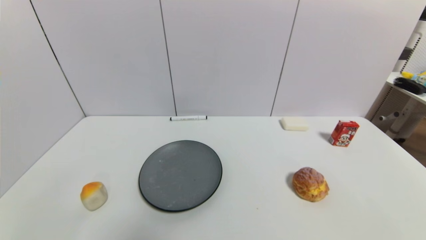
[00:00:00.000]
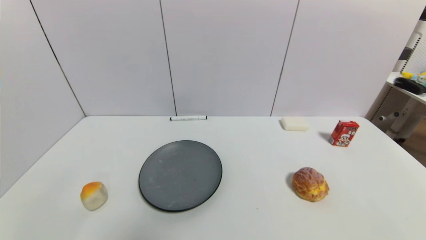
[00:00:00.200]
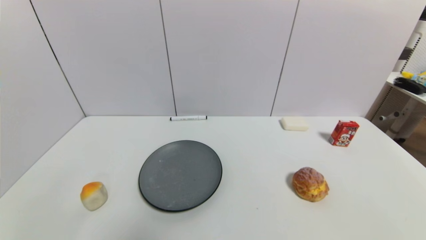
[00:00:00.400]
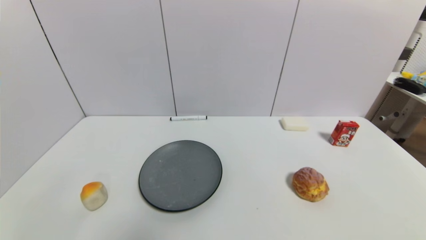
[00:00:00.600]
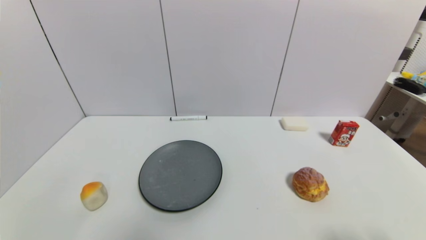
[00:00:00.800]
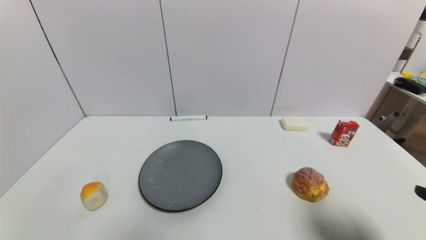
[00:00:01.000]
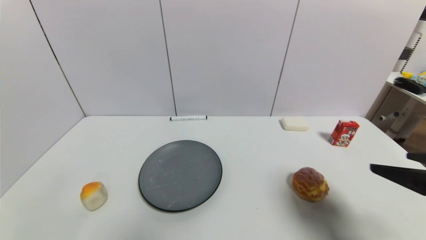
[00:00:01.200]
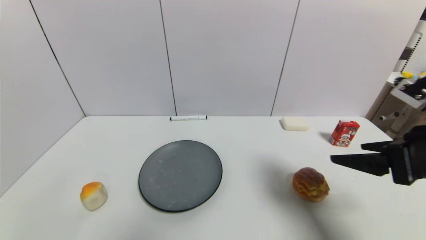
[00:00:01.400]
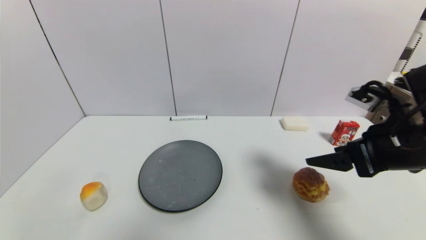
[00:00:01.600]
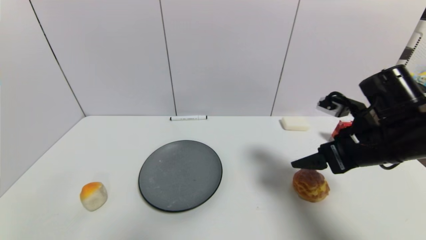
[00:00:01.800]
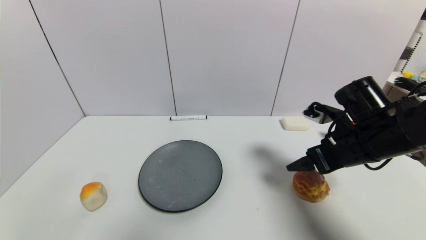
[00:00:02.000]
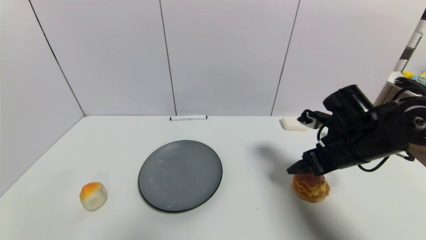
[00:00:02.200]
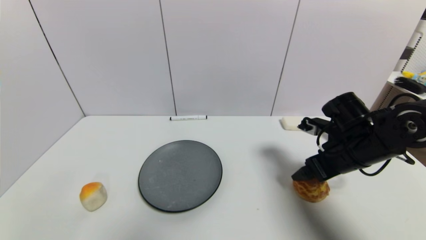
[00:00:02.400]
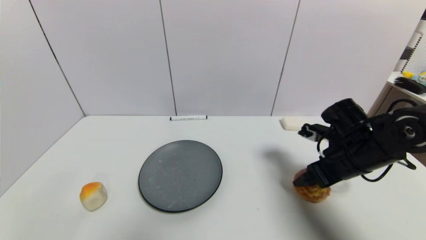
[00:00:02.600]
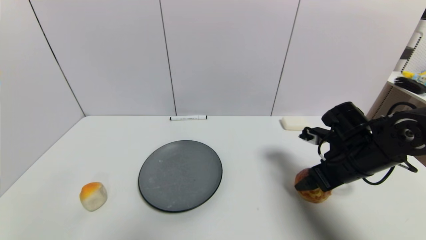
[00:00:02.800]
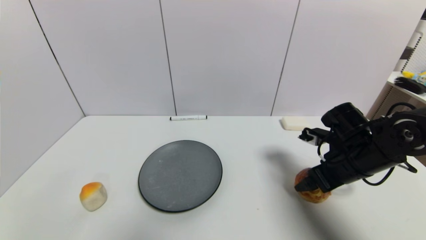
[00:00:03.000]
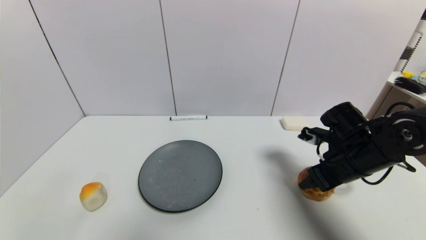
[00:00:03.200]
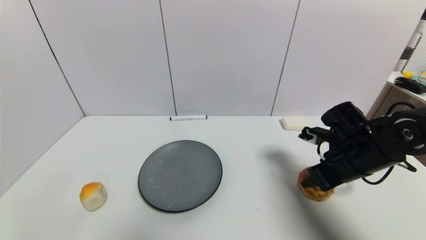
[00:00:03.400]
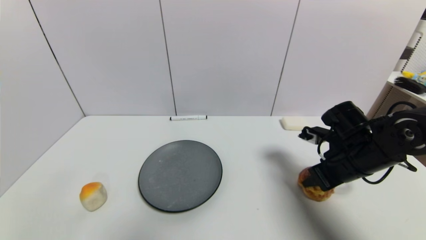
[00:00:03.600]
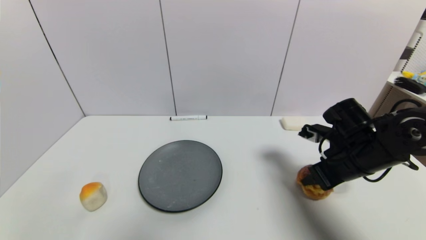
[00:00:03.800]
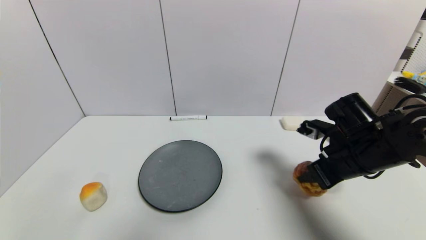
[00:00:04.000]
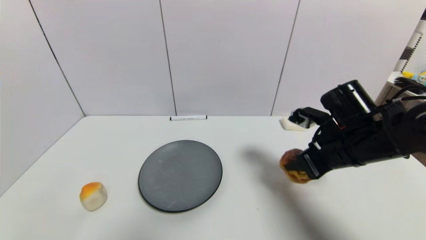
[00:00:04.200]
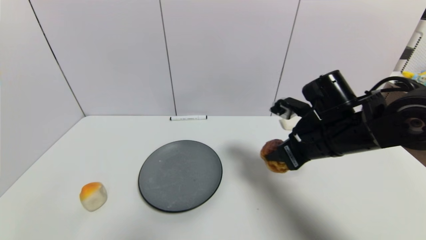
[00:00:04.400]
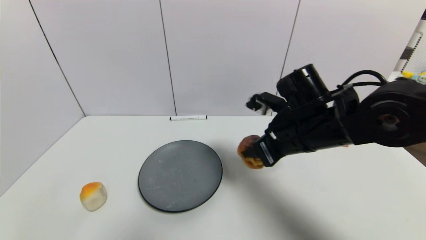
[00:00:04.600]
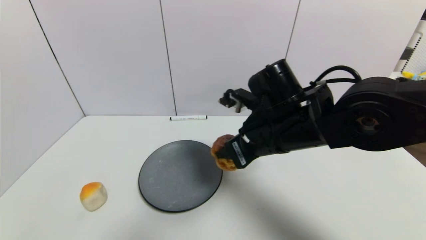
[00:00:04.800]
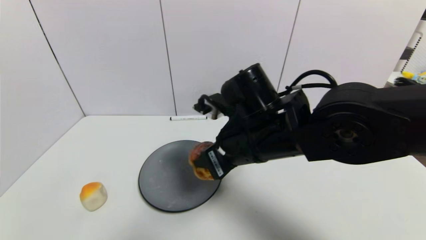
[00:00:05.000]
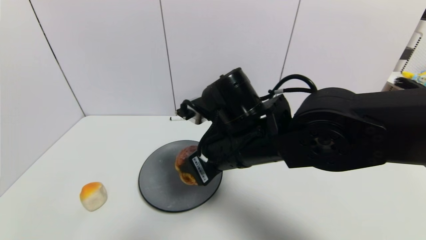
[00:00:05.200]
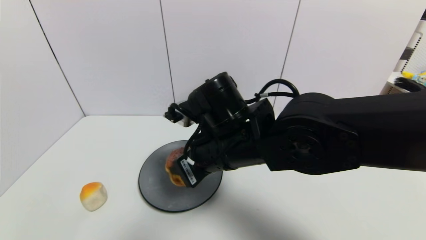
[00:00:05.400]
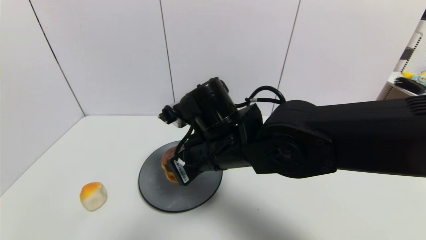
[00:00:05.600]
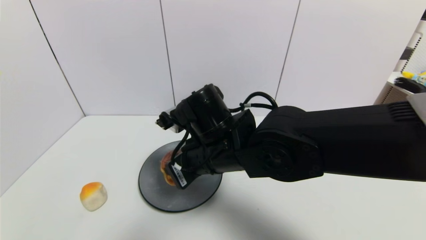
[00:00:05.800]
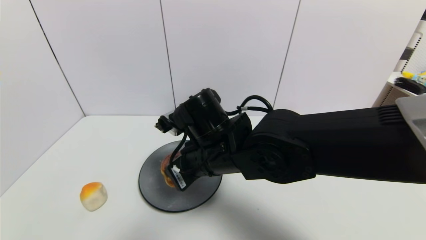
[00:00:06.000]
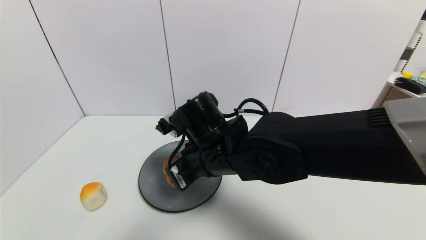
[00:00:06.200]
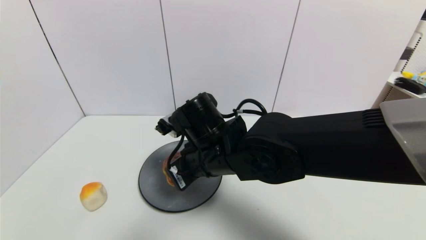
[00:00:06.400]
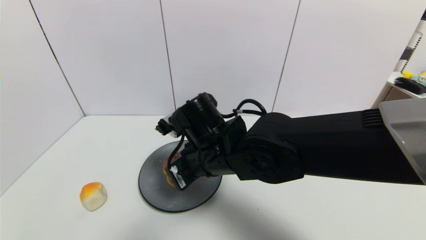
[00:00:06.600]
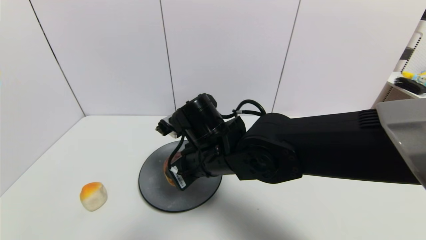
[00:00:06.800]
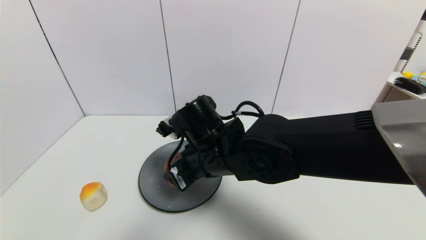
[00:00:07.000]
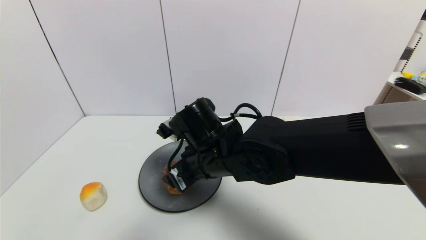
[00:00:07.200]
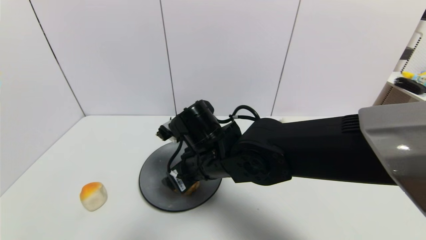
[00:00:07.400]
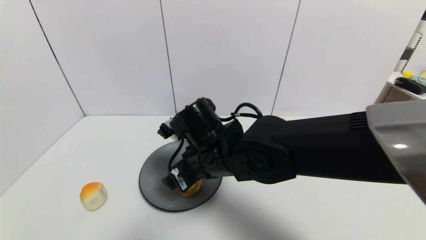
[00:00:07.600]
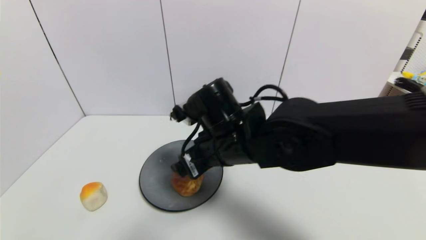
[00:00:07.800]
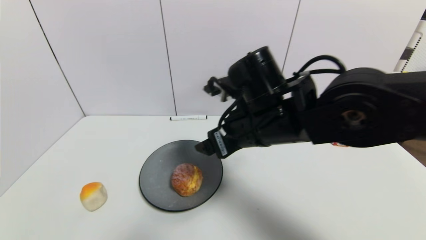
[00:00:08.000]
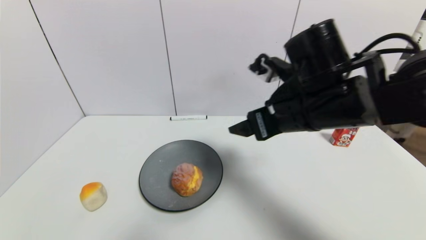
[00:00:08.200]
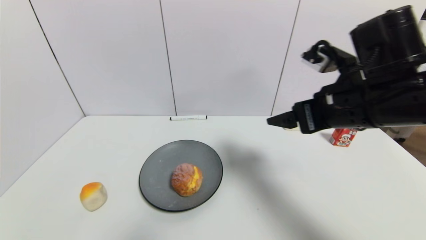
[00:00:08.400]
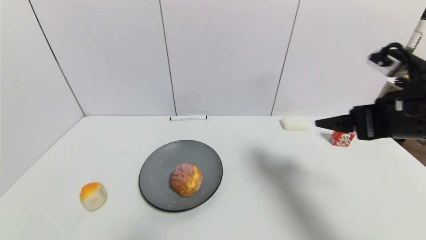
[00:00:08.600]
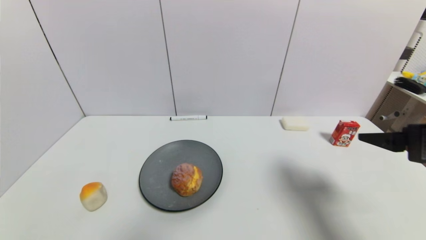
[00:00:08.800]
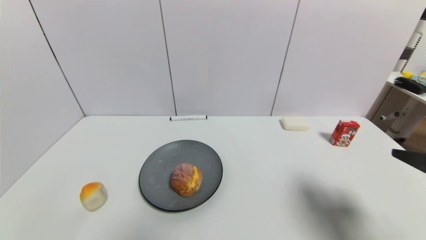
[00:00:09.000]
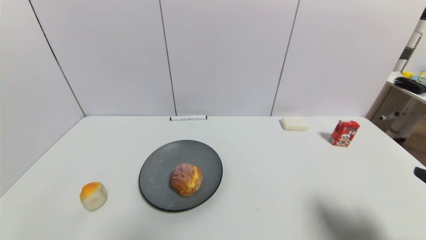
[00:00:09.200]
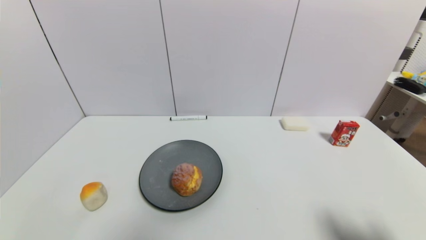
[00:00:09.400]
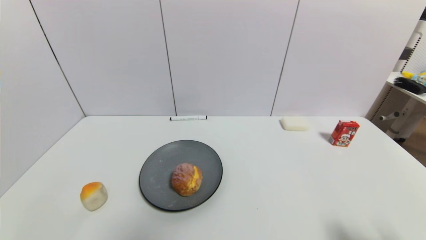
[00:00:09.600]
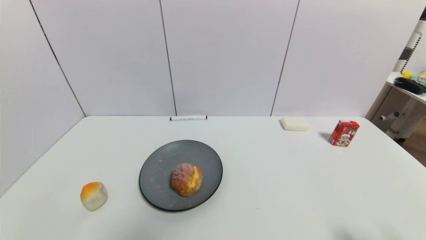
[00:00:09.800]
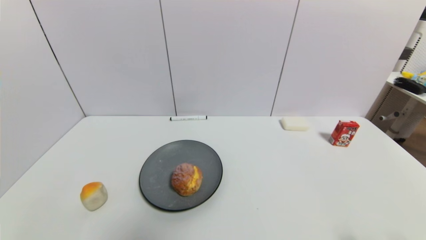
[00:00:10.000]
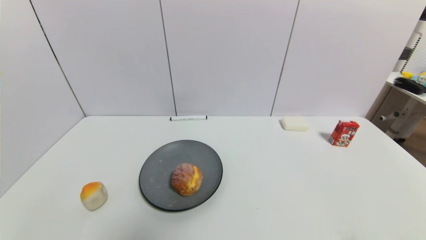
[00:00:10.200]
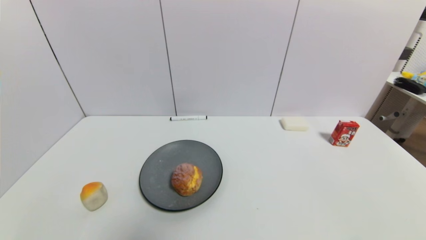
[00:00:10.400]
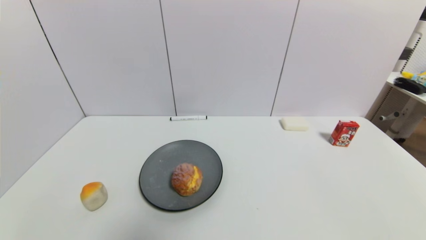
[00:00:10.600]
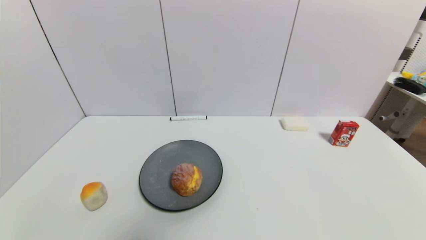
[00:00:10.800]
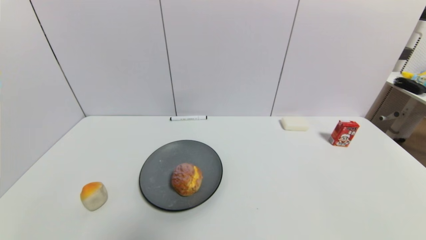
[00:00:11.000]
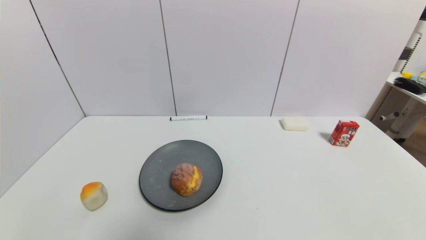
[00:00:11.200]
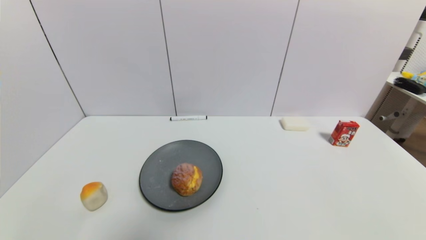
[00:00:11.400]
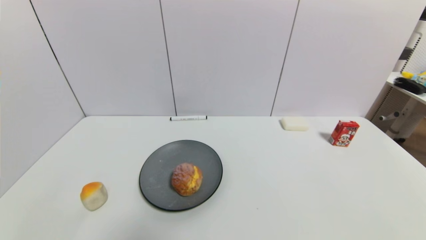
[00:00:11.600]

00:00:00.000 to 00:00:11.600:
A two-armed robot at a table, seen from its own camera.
Task of the whole recording: use a gripper to pick the target object and place on the gray plate.
Step, 00:00:00.000 to 00:00:03.400: Grasp the round bread with the right gripper.
Step, 00:00:03.600 to 00:00:07.800: Place the round bread on the gray plate with the right gripper.
00:00:00.000 to 00:00:01.400: The right gripper heads forward and upward, covering approximately 25 cm.
00:00:01.400 to 00:00:02.800: The right gripper is displaced downward and forward by about 15 cm.
00:00:02.800 to 00:00:04.400: The right gripper shifts approximately 10 cm to the left and upward, and closes its fingers.
00:00:04.400 to 00:00:05.800: The right gripper travels to the left by some 20 cm.
00:00:05.800 to 00:00:07.200: The right gripper opens its fingers.
00:00:07.200 to 00:00:08.800: The right gripper is displaced to the right by roughly 30 cm.
00:00:08.800 to 00:00:10.200: The right gripper travels backward and downward by roughly 20 cm.
